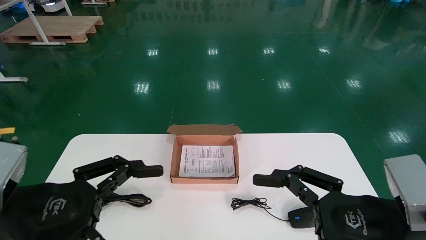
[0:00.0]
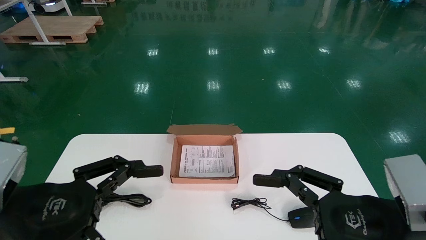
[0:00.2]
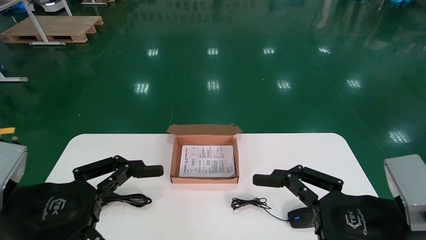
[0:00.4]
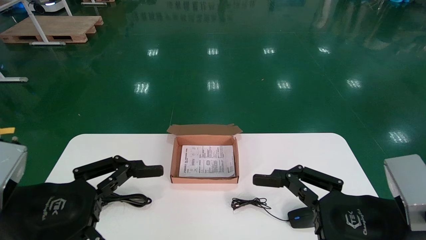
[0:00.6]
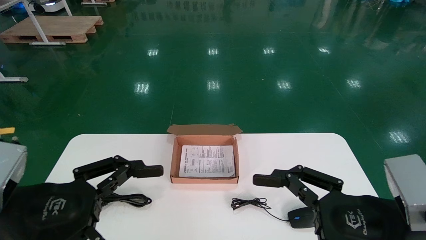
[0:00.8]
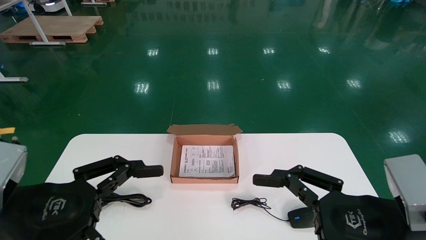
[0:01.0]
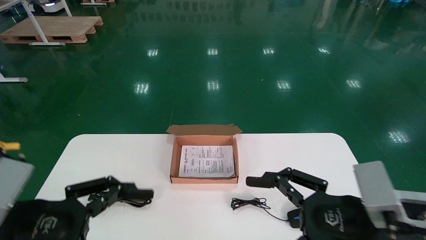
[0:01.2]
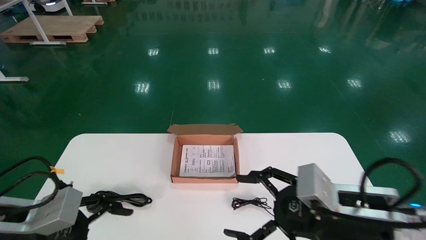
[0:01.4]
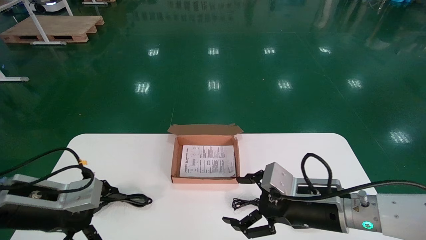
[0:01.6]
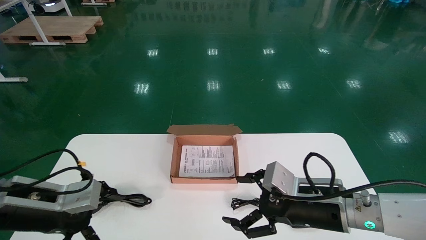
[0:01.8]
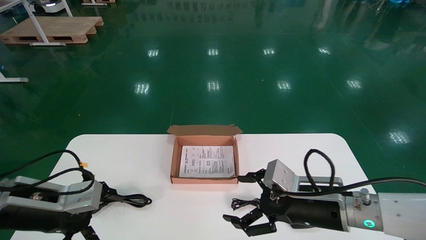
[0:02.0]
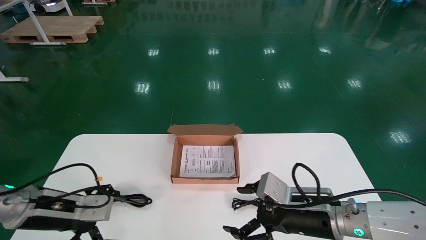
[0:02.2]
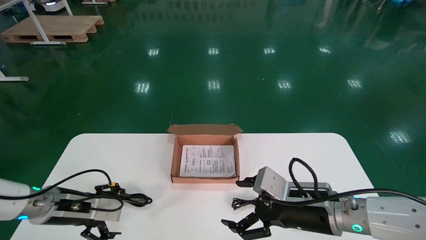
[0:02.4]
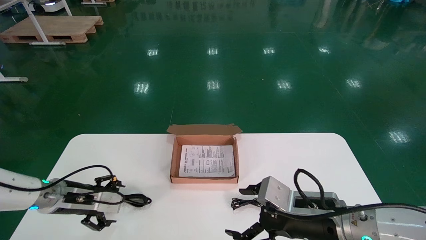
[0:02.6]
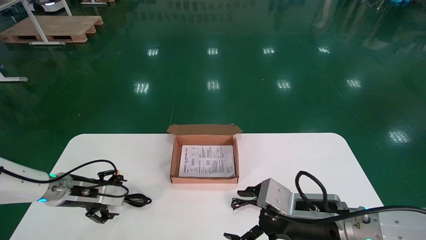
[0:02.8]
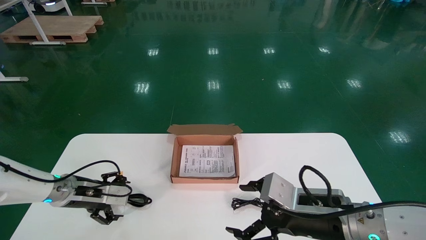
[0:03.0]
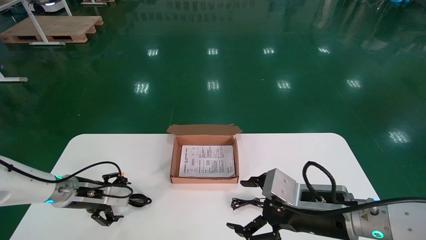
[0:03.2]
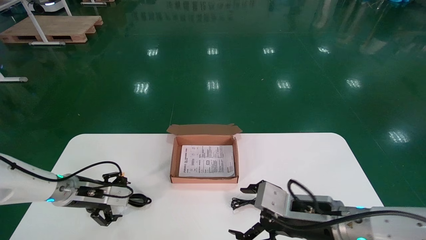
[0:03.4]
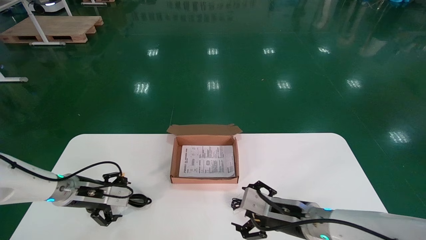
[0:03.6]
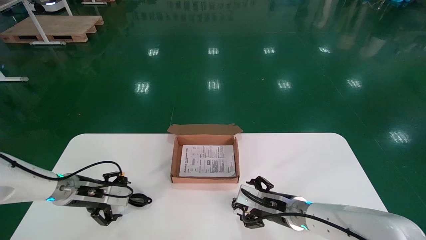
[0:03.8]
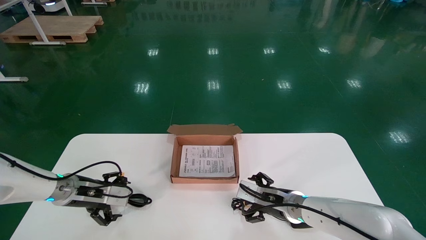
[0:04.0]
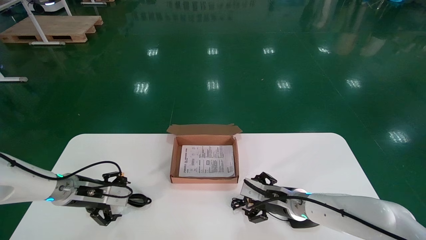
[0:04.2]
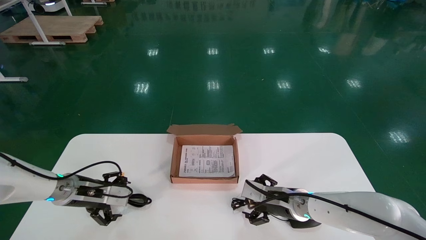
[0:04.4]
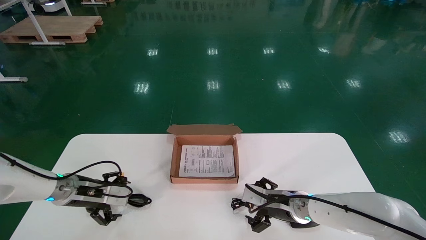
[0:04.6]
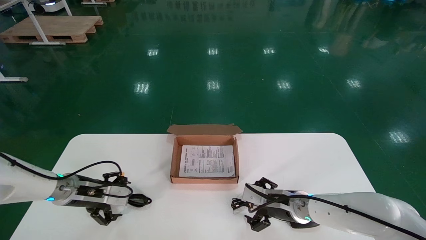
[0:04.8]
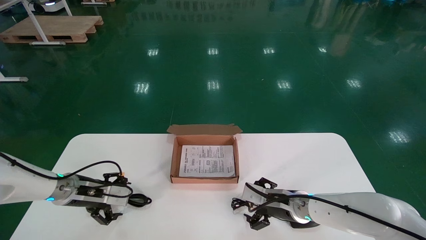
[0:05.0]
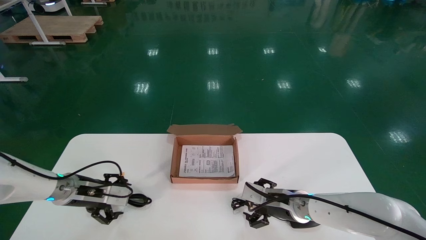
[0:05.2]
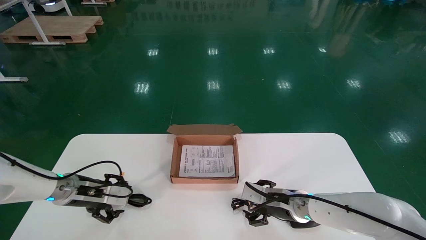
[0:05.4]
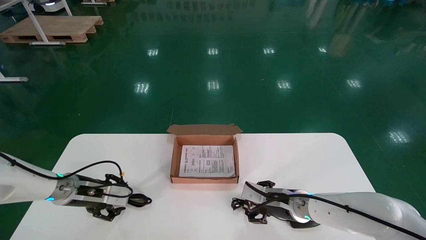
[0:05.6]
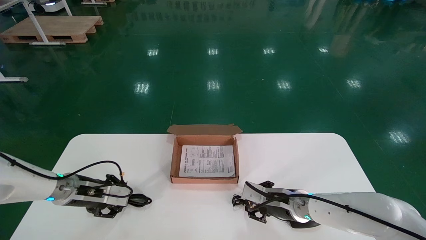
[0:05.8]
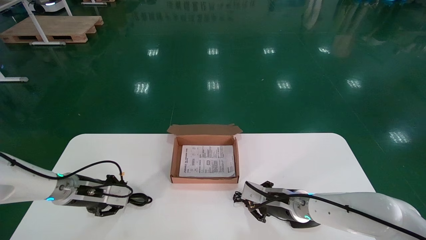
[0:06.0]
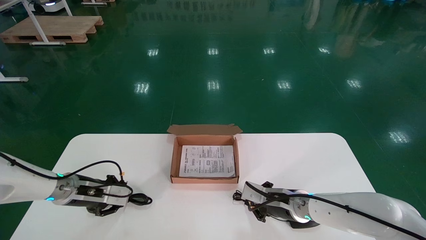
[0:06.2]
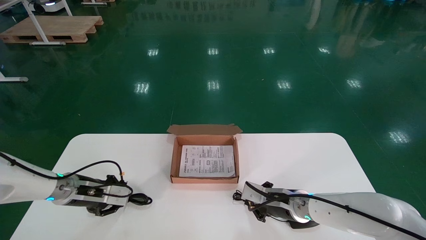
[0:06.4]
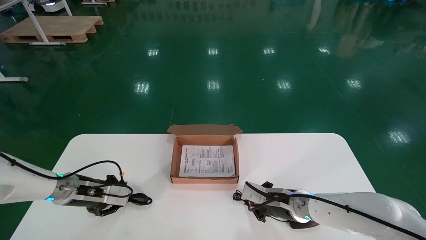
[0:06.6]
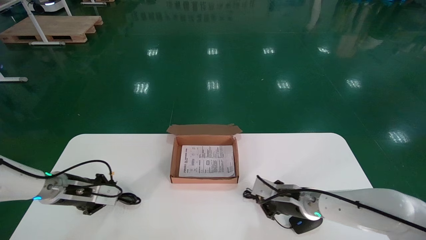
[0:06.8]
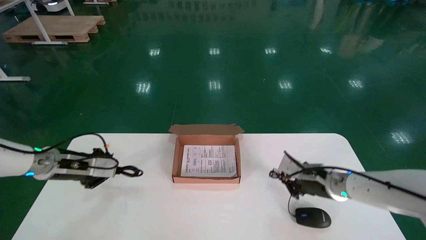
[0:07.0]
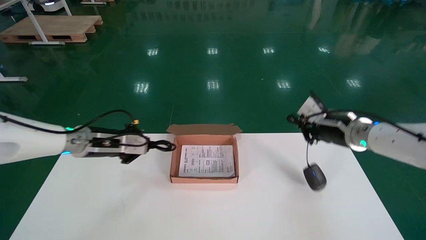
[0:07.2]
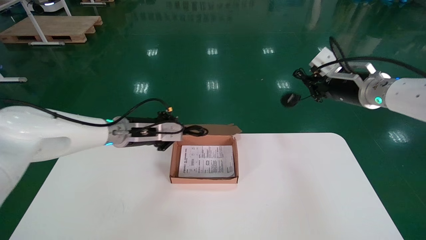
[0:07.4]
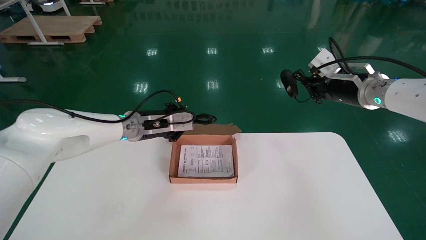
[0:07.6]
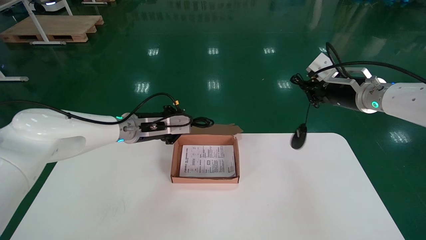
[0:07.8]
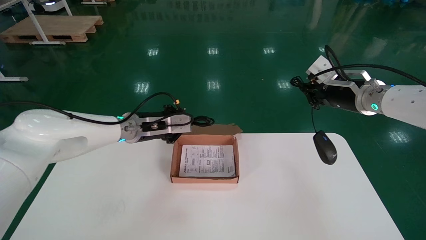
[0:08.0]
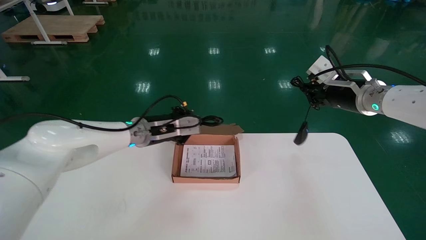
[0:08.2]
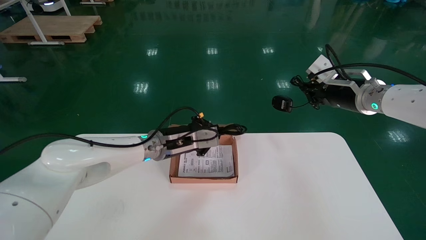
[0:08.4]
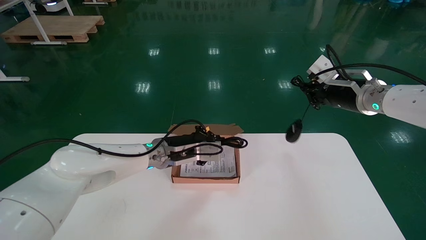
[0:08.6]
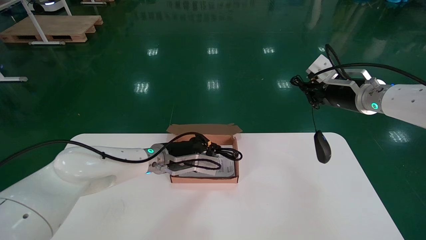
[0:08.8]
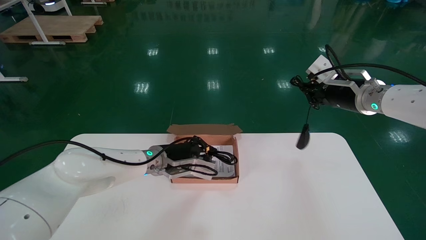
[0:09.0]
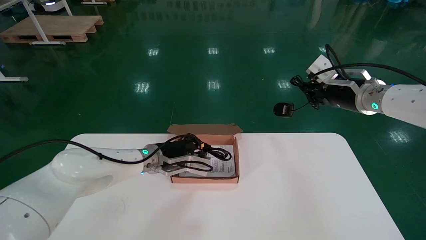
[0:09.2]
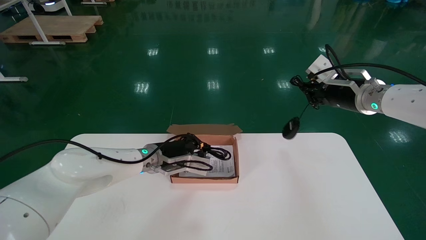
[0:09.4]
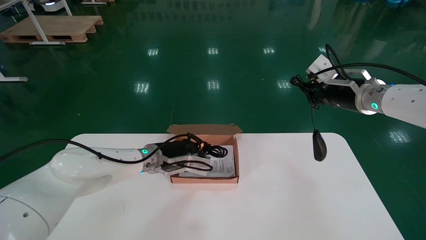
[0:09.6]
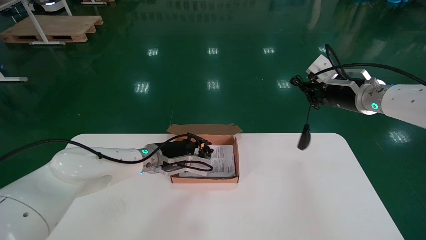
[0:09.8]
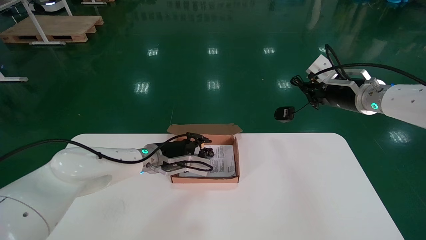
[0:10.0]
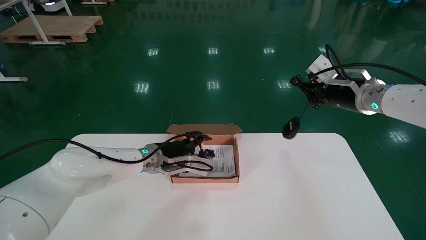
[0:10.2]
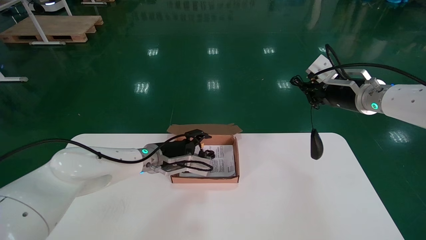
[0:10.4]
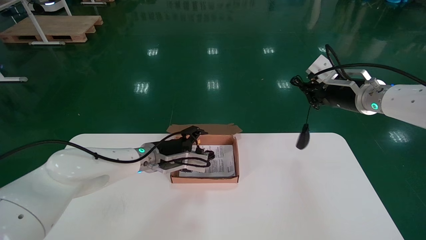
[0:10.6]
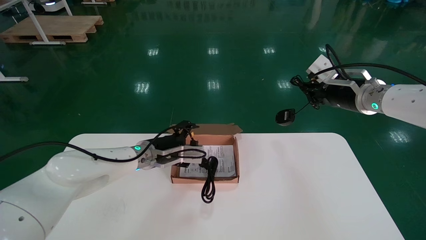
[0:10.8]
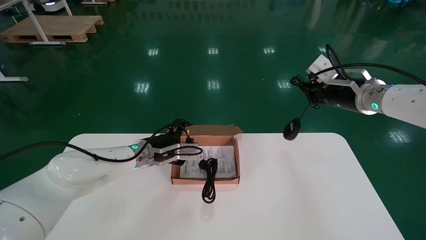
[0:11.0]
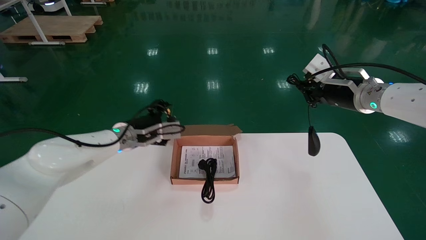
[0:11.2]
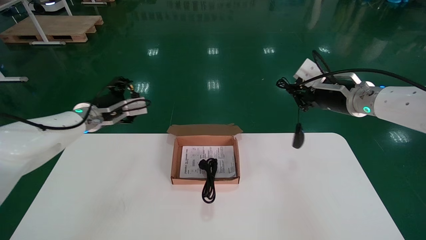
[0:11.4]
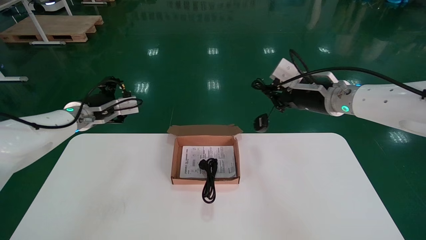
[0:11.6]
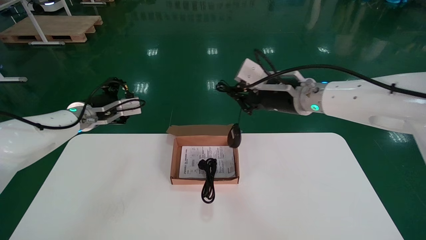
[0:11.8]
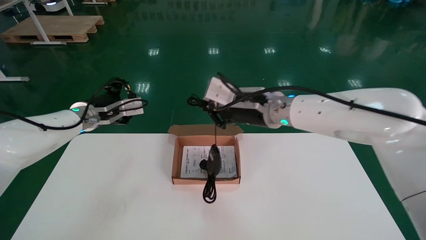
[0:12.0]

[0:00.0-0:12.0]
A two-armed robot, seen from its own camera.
Step, 0:01.4 to 0:07.0: Simultaneously pick up the mouse and power cord from the accessory packaging area.
0:00.0 to 0:01.6: The right gripper goes roughly 10 cm forward. Meanwhile the left gripper is displaced forward and to the left by about 10 cm.
0:01.6 to 0:03.0: The left gripper is displaced forward and downward by some 15 cm.
0:03.0 to 0:04.4: The right gripper goes roughly 15 cm forward and downward.
0:04.4 to 0:06.0: The right gripper closes its fingers. The left gripper closes up.
0:06.0 to 0:07.6: The left gripper goes approximately 20 cm to the right and upward; the right gripper shifts approximately 30 cm upward and to the right.
0:07.6 to 0:09.0: The left gripper is displaced downward and to the right by approximately 10 cm.
0:09.0 to 0:10.4: The left gripper opens up.
0:10.4 to 0:12.0: The right gripper is displaced to the left by some 20 cm. Meanwhile the left gripper moves to the left and upward, some 20 cm, and opens its fingers.

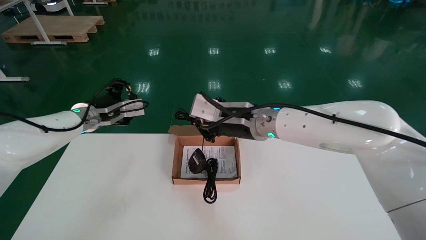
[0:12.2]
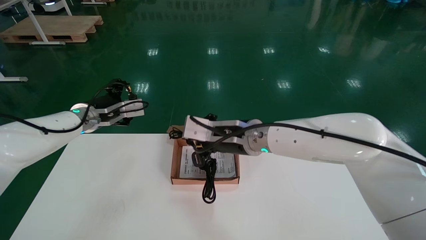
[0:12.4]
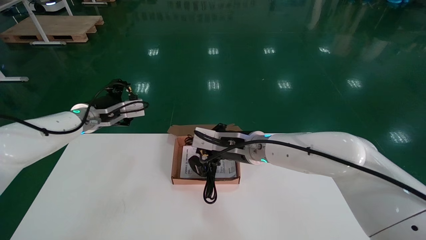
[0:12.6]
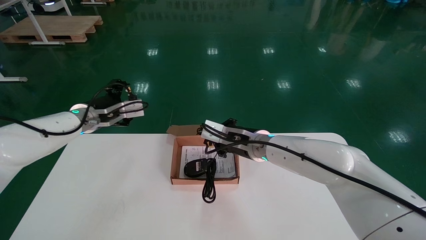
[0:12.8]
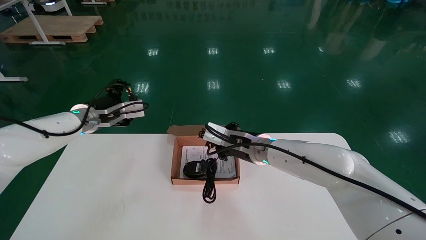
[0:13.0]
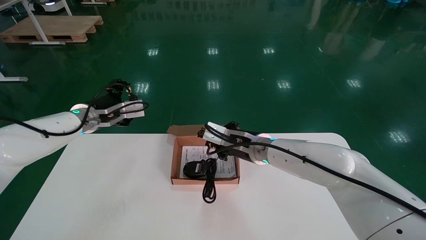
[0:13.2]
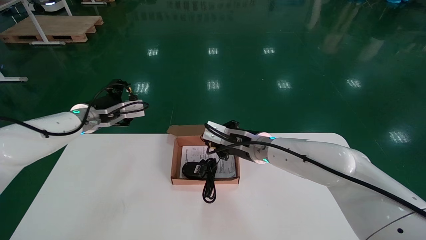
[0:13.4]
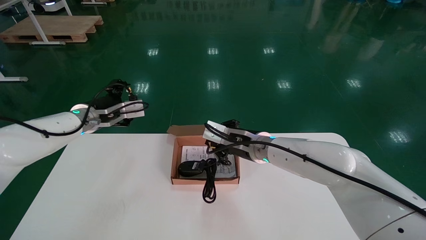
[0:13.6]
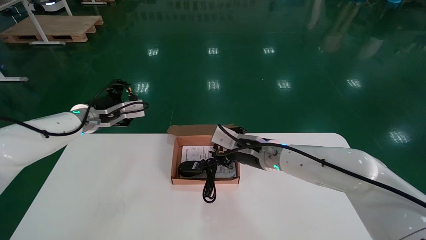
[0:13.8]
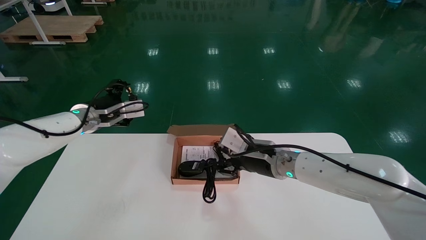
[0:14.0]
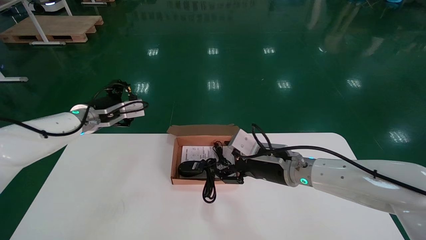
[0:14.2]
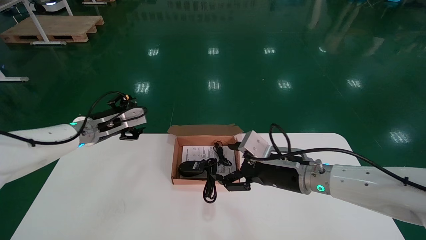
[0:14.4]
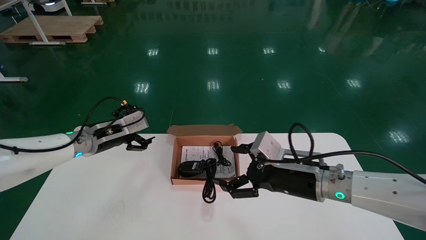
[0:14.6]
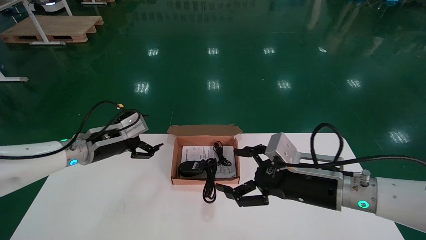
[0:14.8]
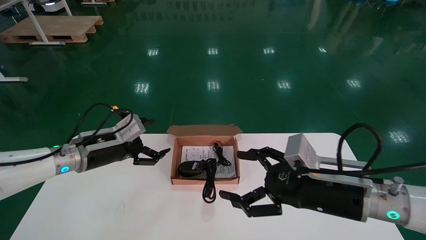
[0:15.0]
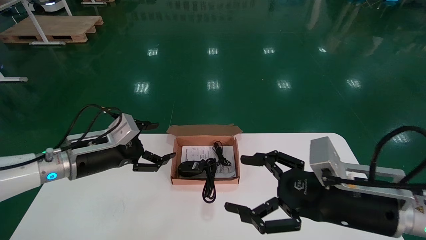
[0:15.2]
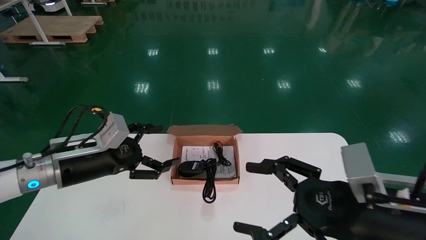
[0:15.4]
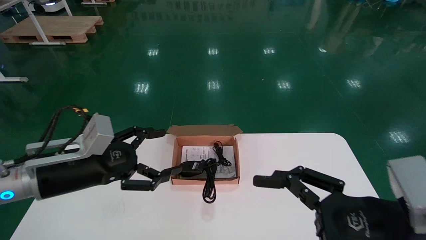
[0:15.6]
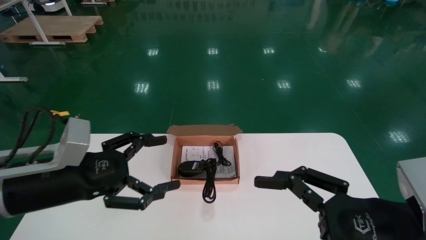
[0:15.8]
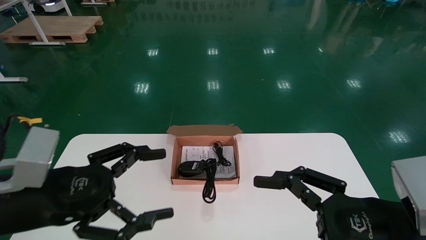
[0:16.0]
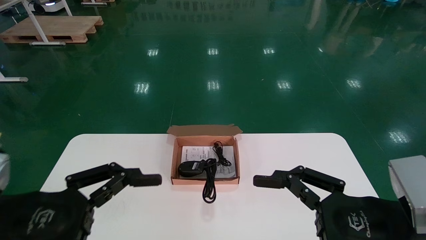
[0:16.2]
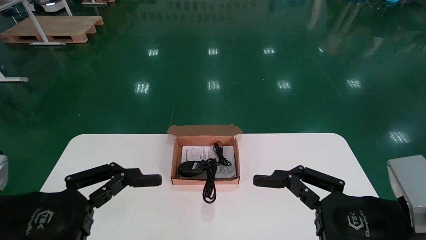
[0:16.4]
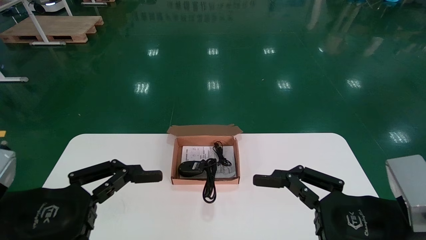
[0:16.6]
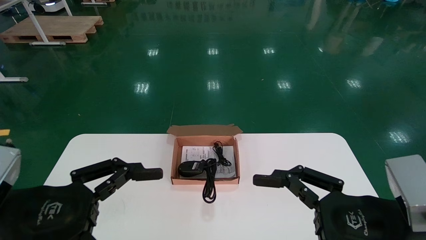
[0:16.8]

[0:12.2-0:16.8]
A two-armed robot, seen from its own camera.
0:12.2 to 0:13.8: The right gripper heads downward, covering about 10 cm.
0:13.8 to 0:15.2: The right gripper heads backward and to the right, covering some 20 cm, and opens. The left gripper is displaced backward and downward by some 15 cm.
0:15.2 to 0:16.8: The left gripper travels backward by roughly 20 cm. The right gripper shifts approximately 10 cm backward.
